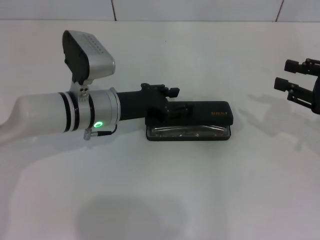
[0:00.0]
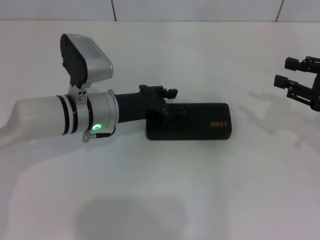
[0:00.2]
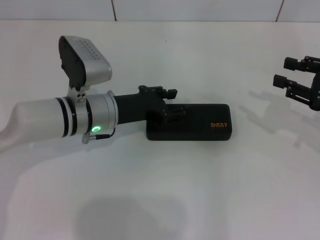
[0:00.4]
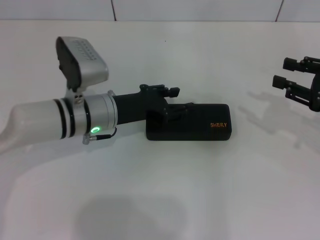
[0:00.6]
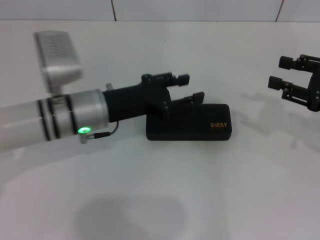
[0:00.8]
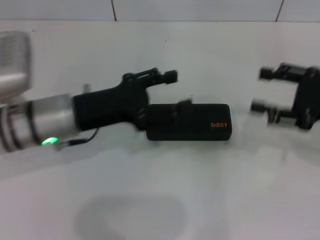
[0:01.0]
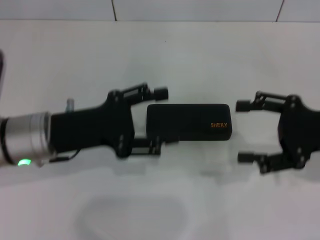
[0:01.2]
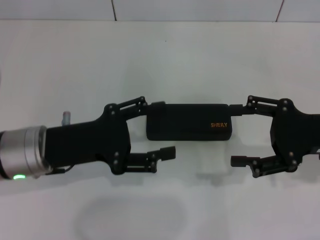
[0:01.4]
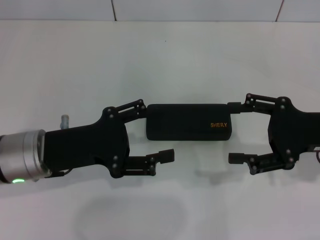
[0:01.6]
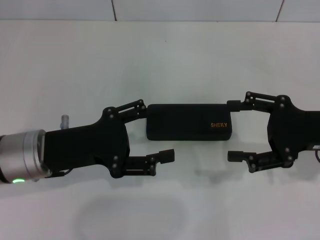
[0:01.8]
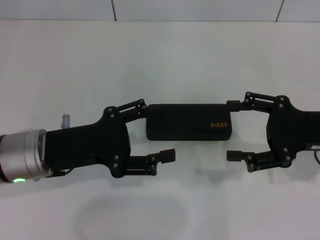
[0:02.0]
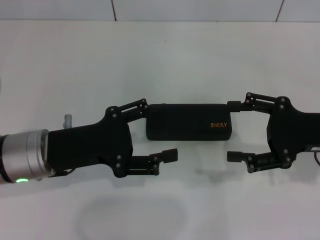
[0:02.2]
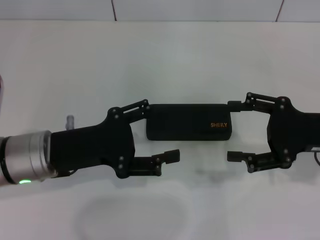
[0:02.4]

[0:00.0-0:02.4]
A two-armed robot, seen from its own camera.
0:00.0 to 0:01.2: The right gripper heads to the left, covering approximately 5 cm, and opens its fingers. Meanwhile the left gripper goes approximately 10 cm backward and to the left.
0:01.2 to 0:02.4: The grippers move only a little.
